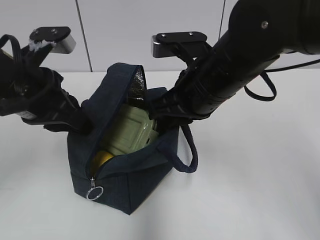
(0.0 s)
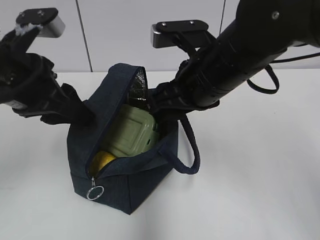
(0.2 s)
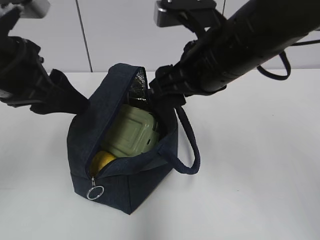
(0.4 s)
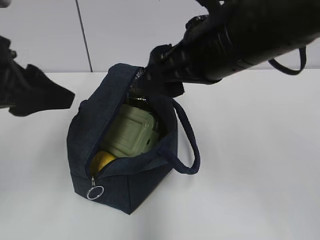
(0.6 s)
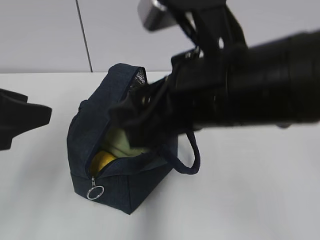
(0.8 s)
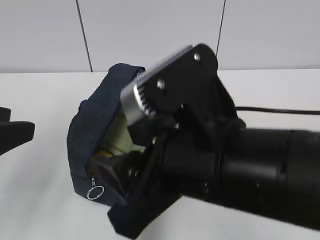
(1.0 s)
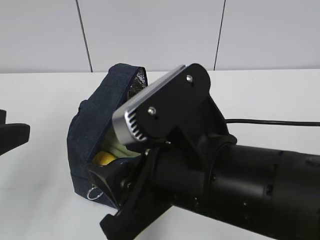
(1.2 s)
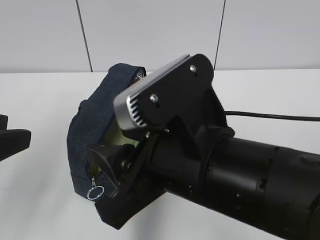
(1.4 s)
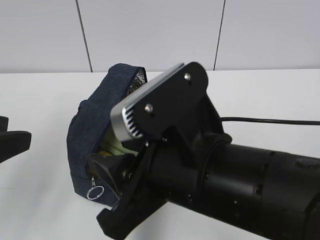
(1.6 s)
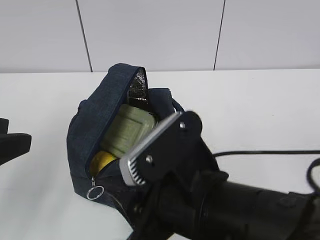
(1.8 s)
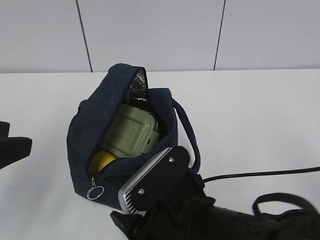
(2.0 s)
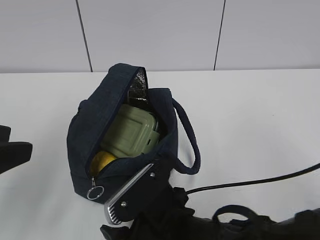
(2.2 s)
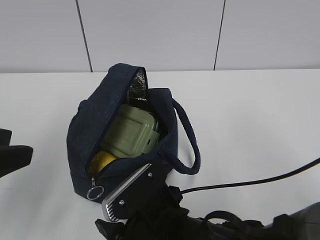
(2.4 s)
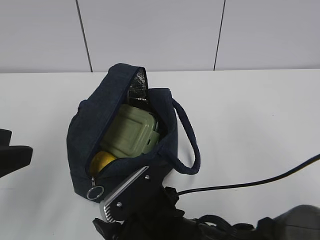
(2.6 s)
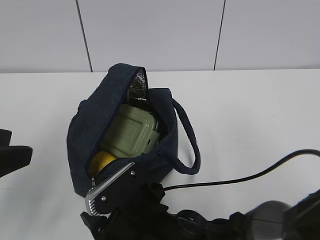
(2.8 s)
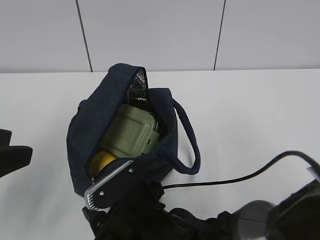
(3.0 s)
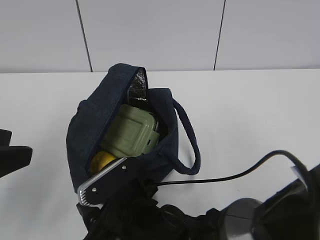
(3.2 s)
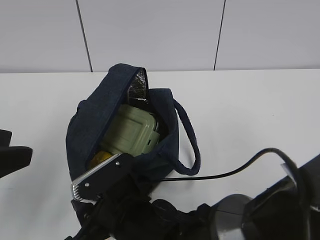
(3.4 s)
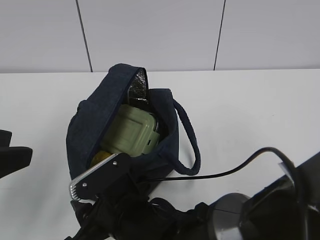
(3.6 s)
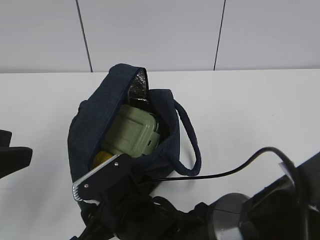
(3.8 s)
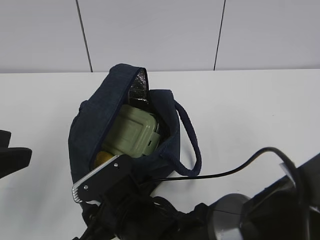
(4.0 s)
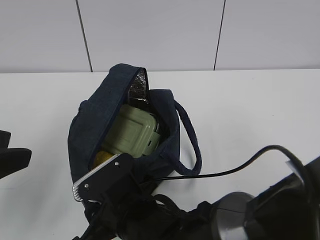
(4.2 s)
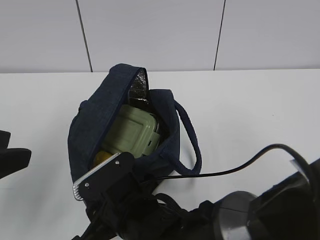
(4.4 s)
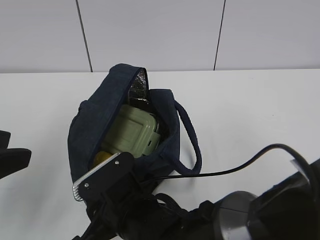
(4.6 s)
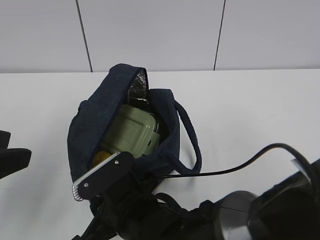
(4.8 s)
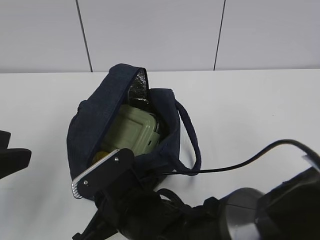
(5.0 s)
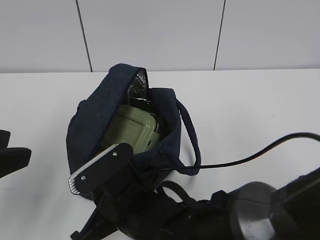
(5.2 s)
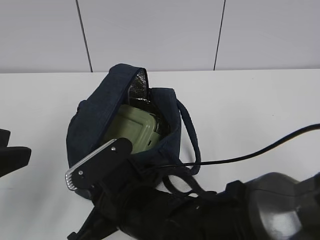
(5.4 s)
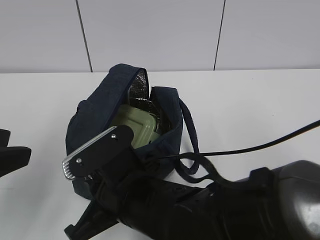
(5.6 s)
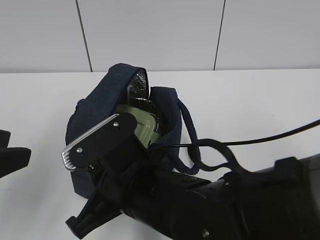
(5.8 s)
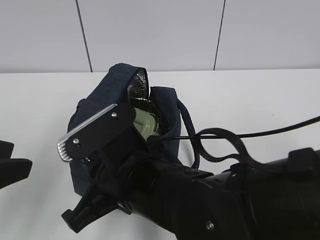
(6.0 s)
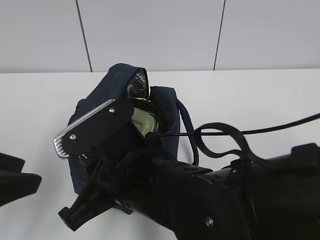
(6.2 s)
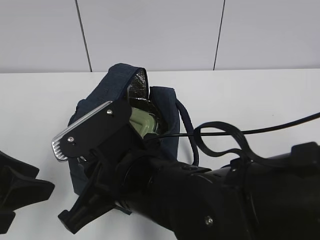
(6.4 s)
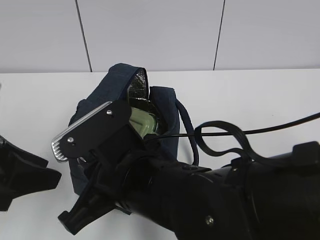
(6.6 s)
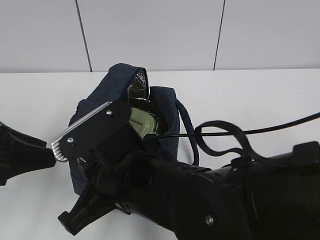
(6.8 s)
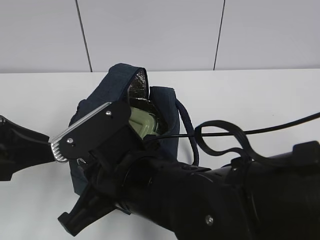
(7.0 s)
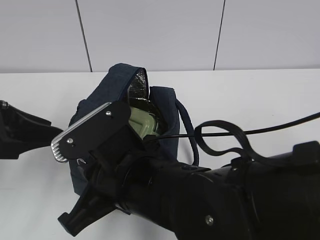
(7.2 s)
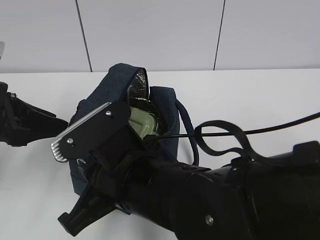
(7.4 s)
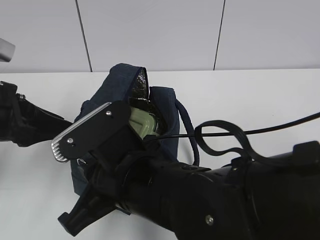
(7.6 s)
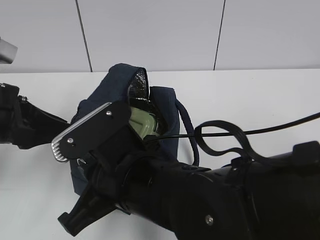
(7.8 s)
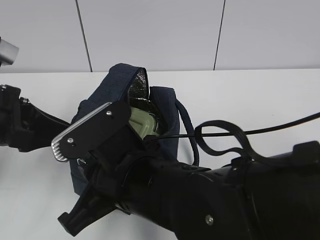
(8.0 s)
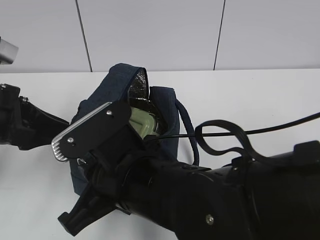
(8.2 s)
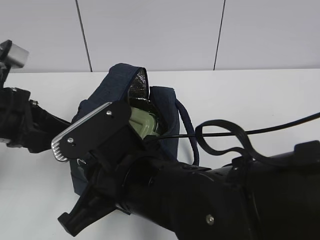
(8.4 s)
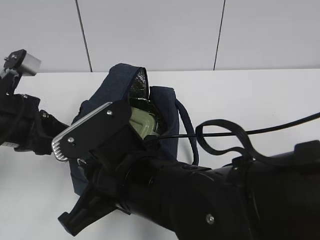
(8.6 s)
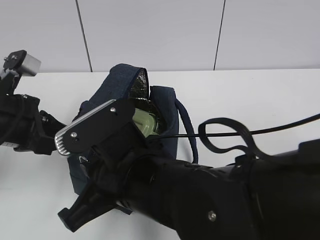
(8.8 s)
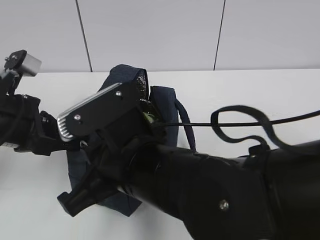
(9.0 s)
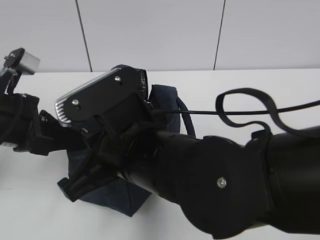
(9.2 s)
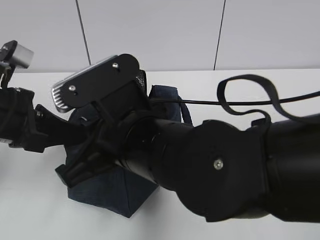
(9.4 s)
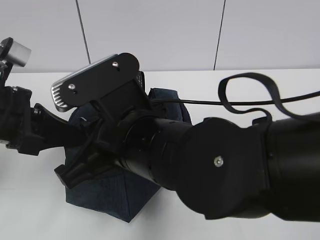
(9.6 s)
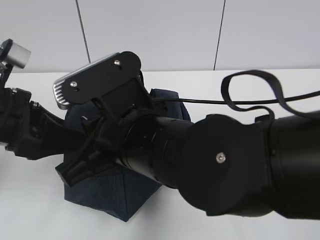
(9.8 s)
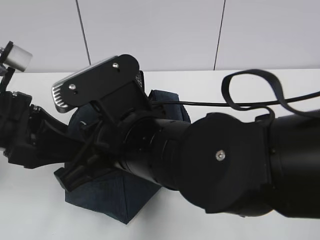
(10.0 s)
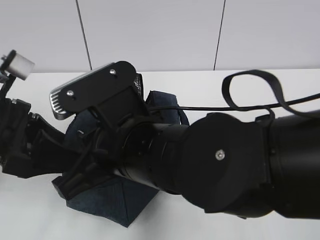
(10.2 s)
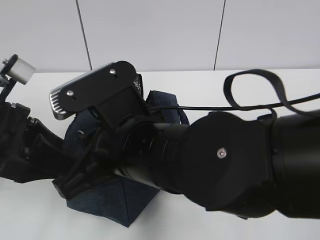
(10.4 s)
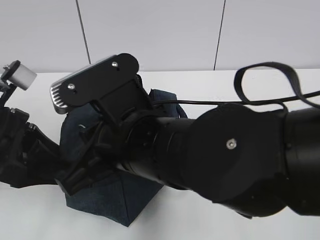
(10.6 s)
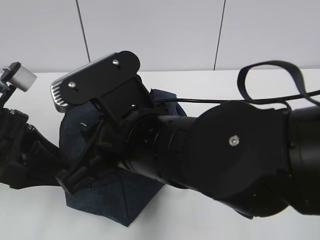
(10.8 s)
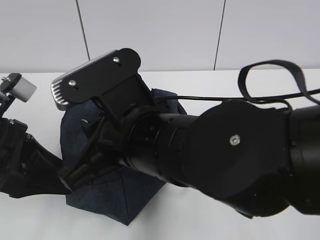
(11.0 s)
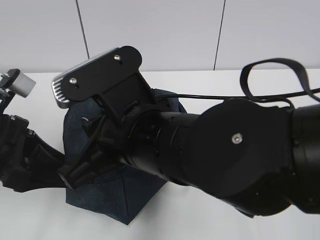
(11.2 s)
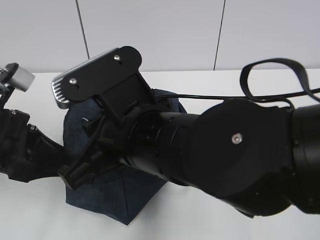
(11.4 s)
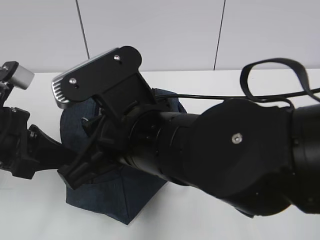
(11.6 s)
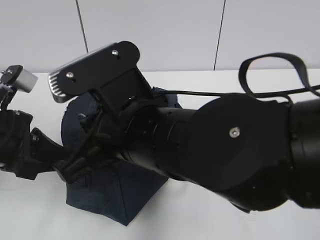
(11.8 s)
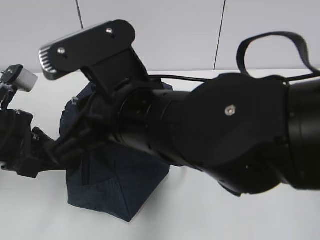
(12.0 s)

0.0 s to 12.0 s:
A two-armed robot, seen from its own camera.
0.0 to 1.6 s: The left gripper travels backward and to the left by roughly 15 cm, and opens up, while the right gripper moves backward, about 15 cm, and opens.
1.6 to 3.0 s: The right gripper is displaced downward by some 15 cm.
3.0 to 4.4 s: There are only small adjustments of the grippers.
4.4 to 6.0 s: The right gripper shifts about 10 cm upward, and closes its fingers.
6.0 to 7.6 s: The left gripper goes approximately 10 cm forward.
7.6 to 9.0 s: The left gripper closes up.
9.0 to 10.4 s: The left gripper opens up.
10.4 to 12.0 s: The left gripper closes its fingers.

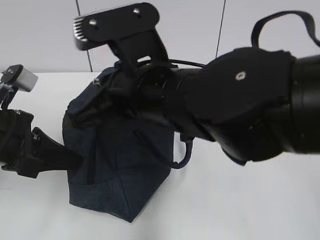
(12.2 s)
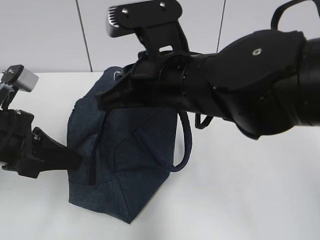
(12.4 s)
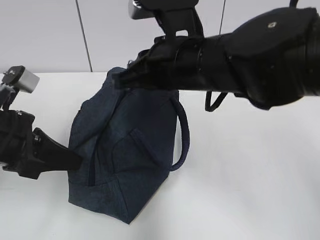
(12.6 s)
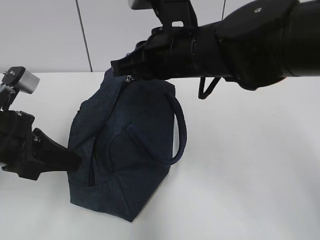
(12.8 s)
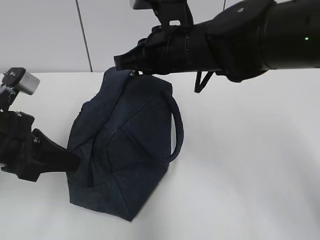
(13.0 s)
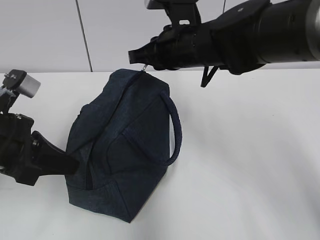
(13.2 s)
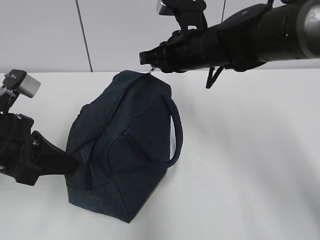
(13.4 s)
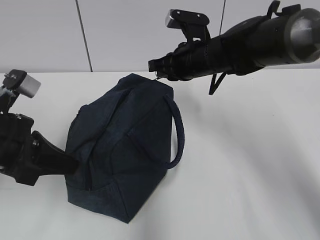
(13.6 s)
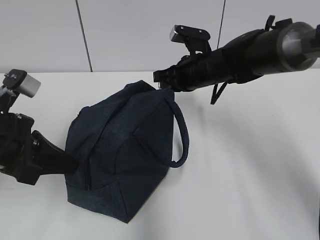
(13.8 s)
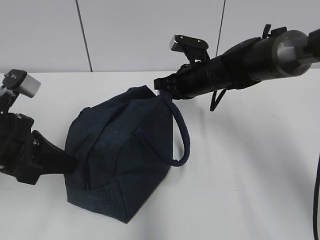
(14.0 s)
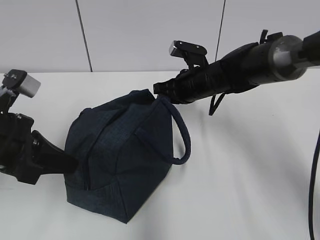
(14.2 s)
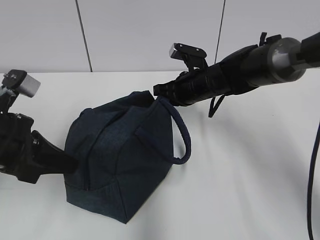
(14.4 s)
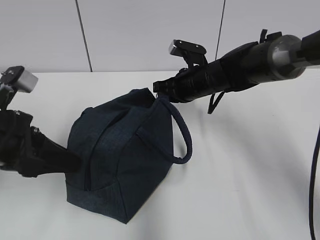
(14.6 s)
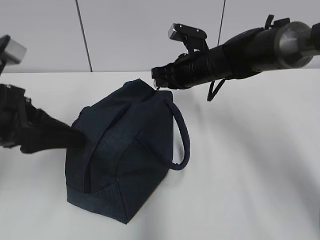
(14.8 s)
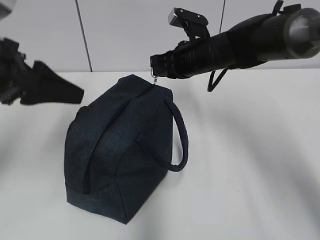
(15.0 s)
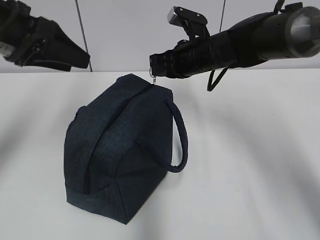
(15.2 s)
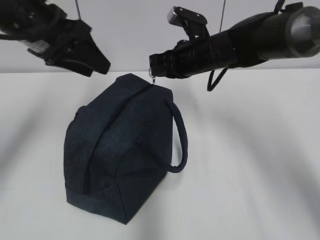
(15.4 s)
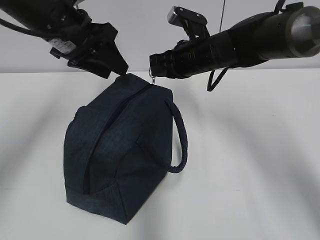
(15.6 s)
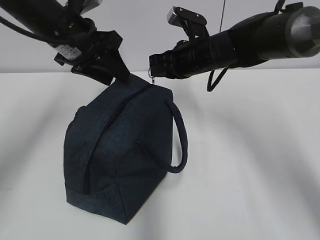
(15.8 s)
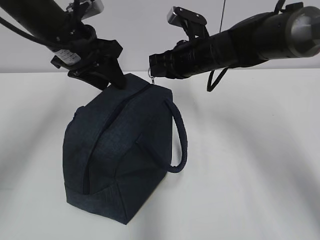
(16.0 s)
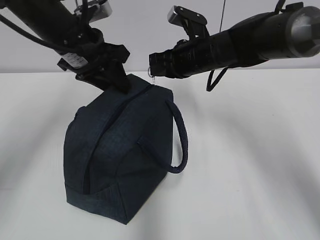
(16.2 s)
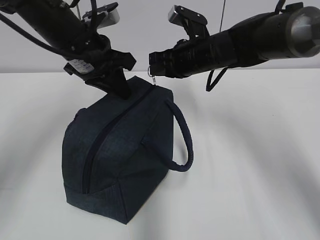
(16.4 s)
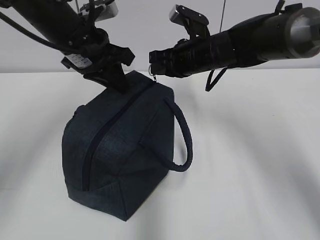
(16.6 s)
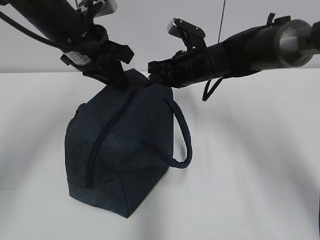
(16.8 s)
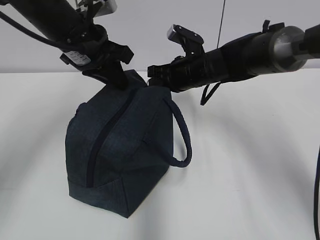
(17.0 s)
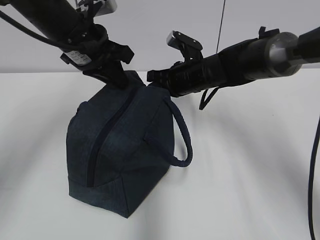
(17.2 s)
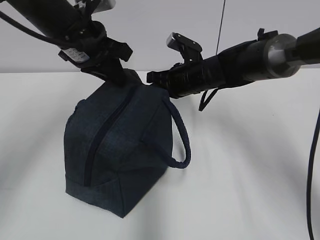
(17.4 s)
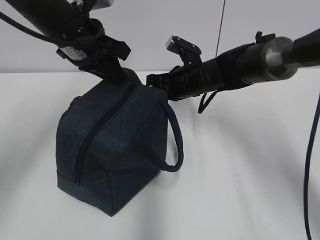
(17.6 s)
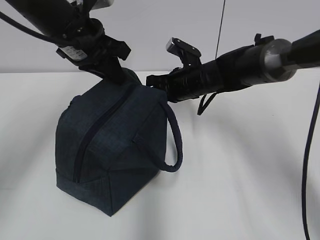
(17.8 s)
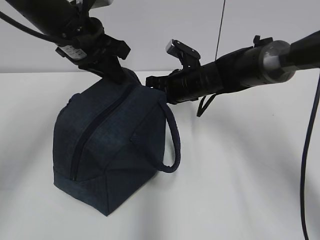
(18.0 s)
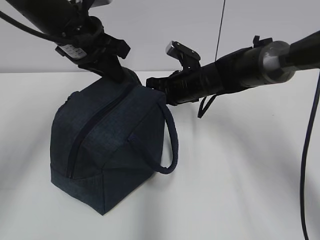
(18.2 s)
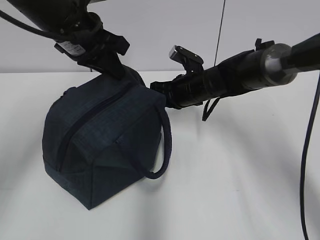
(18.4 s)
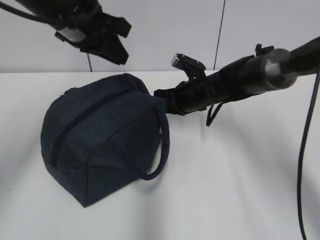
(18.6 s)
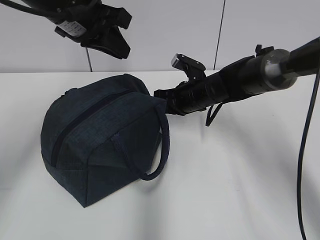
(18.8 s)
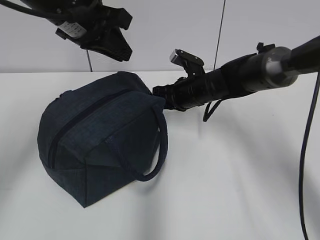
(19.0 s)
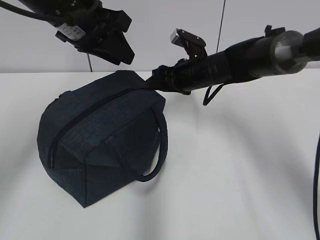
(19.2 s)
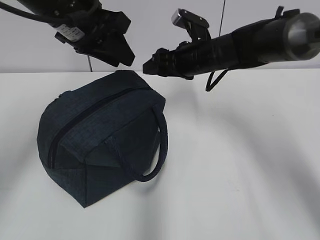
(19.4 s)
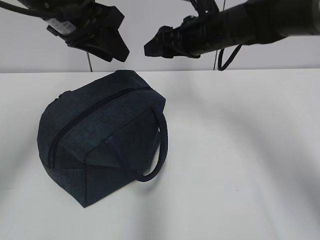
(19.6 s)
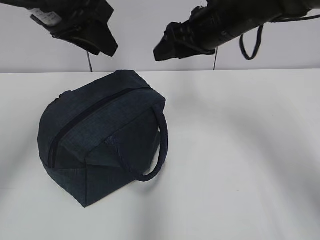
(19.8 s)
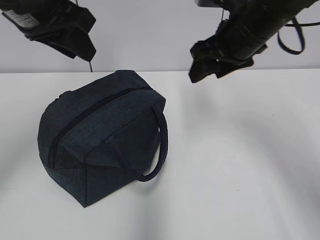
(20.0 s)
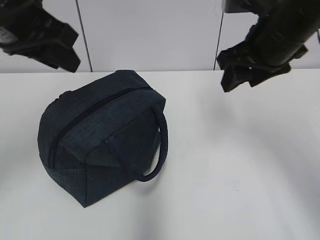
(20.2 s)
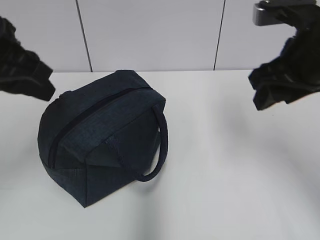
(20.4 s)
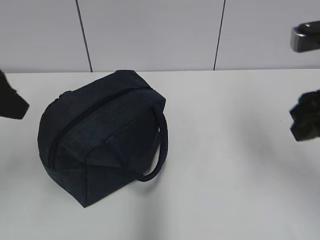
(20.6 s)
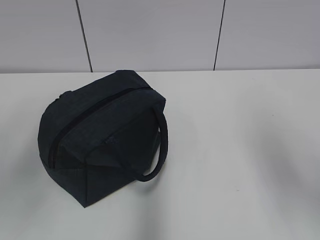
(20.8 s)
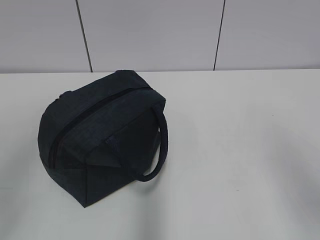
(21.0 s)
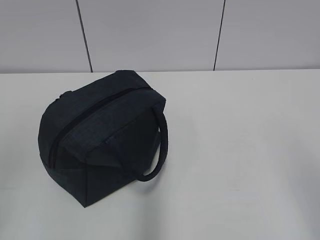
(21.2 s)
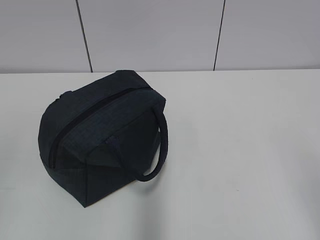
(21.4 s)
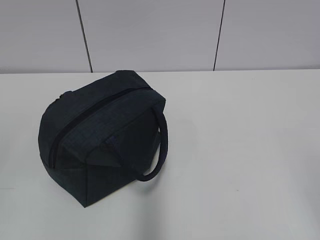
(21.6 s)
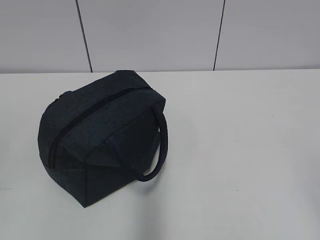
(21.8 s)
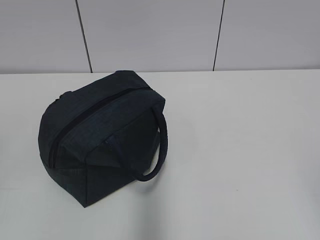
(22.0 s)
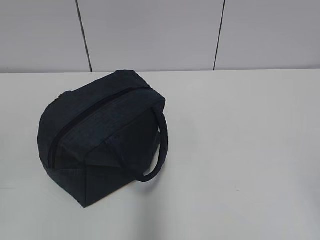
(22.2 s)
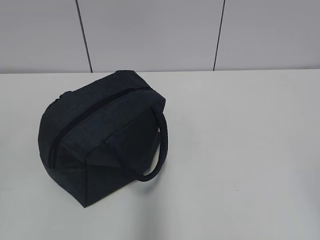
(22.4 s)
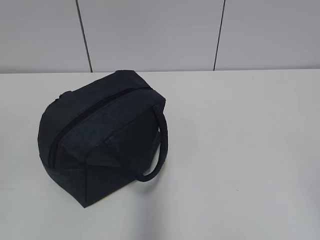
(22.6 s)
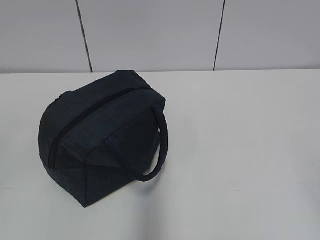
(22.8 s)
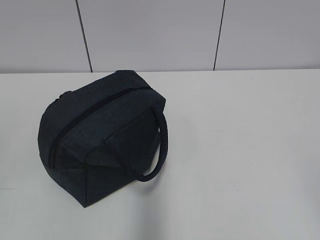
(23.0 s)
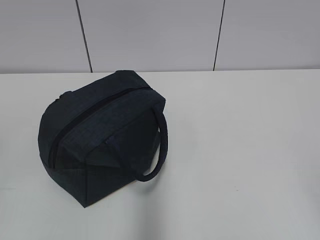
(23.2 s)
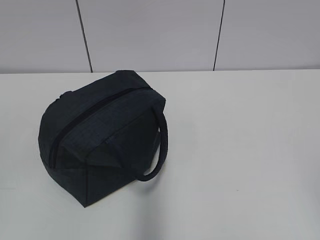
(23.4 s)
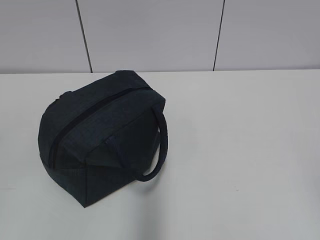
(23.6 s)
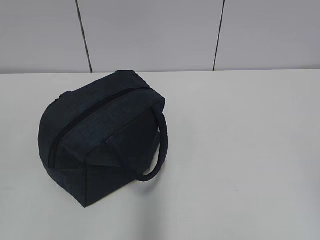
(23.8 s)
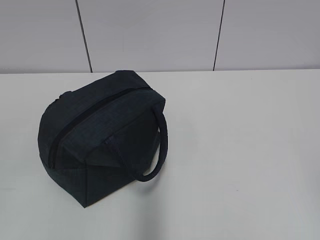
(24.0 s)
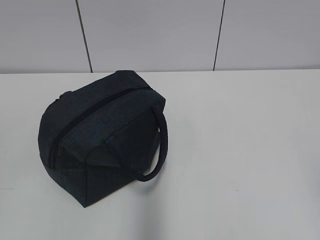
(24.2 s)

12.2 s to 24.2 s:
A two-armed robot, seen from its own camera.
Step, 14.8 to 18.4 s: Grab the lunch bag with your left hand.
Step, 18.6 to 19.0 s: Pull the zipper with your right hand.
12.2 to 13.8 s: The right gripper goes approximately 25 cm forward, to the right and downward.
13.8 to 15.2 s: The left gripper moves upward and forward, some 15 cm, and opens.
15.2 to 16.6 s: The left gripper is displaced to the right and forward by some 10 cm, and closes its fingers.
16.6 to 18.2 s: The right gripper moves downward, roughly 5 cm.
18.2 to 19.8 s: The right gripper is displaced upward by some 15 cm, and opens up, while the left gripper travels upward by about 5 cm, and opens.
19.8 to 21.2 s: The right gripper travels backward and to the right by approximately 35 cm, while the left gripper heads backward and to the left, covering some 30 cm.
